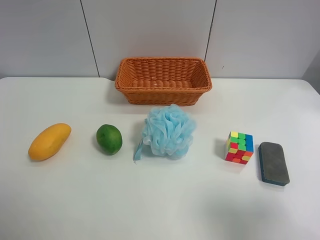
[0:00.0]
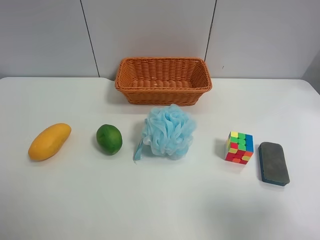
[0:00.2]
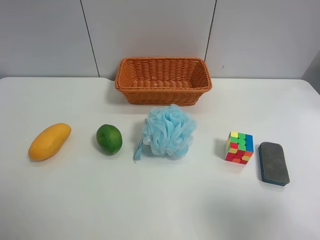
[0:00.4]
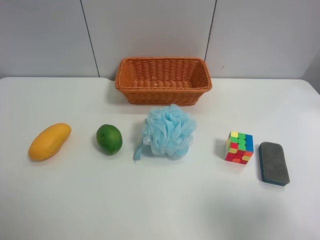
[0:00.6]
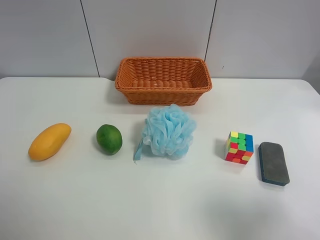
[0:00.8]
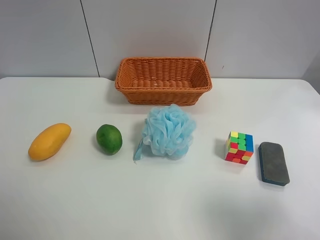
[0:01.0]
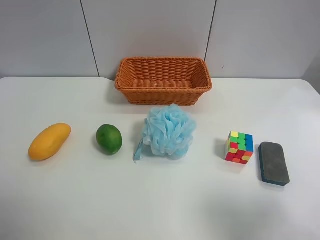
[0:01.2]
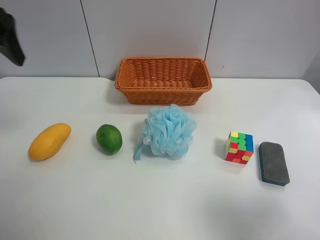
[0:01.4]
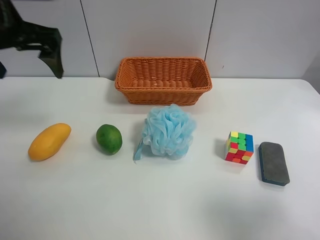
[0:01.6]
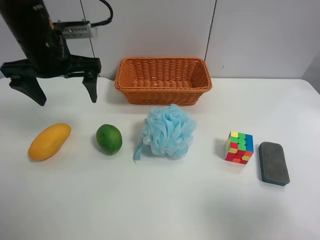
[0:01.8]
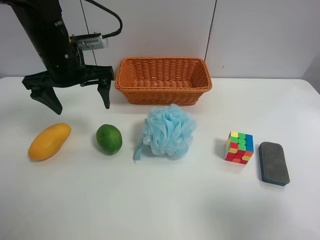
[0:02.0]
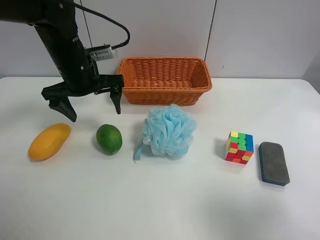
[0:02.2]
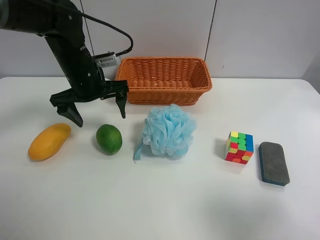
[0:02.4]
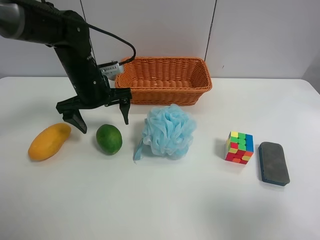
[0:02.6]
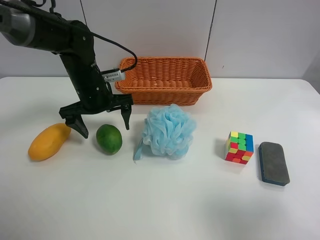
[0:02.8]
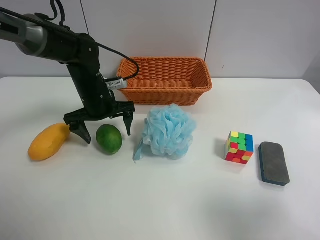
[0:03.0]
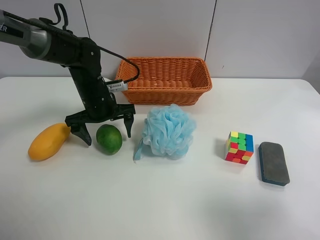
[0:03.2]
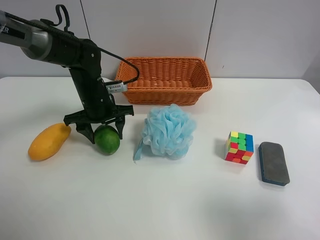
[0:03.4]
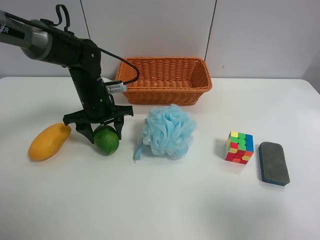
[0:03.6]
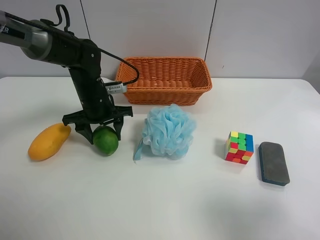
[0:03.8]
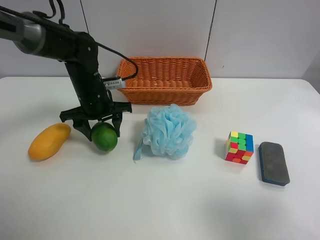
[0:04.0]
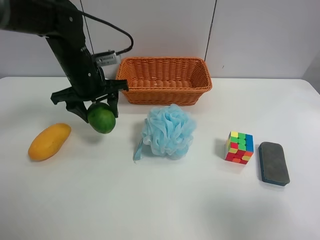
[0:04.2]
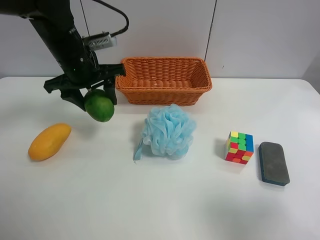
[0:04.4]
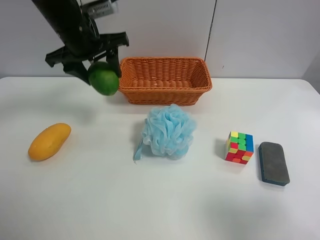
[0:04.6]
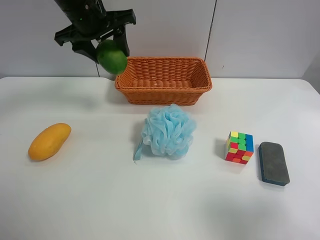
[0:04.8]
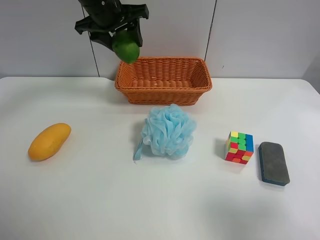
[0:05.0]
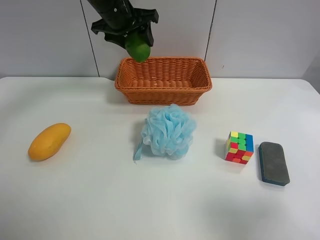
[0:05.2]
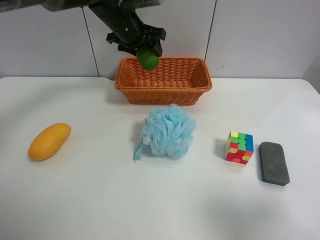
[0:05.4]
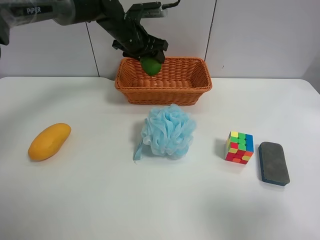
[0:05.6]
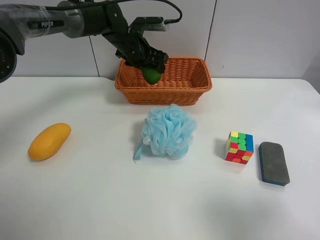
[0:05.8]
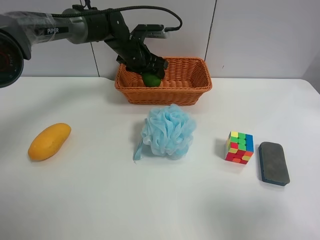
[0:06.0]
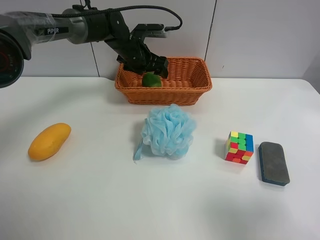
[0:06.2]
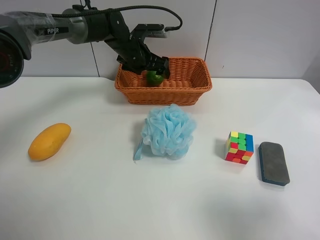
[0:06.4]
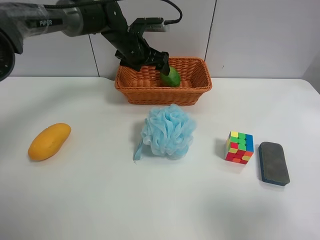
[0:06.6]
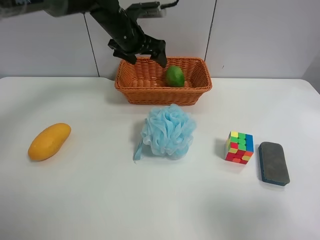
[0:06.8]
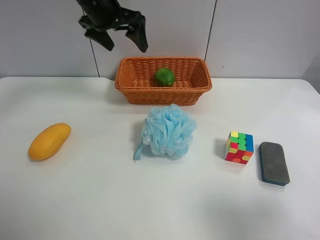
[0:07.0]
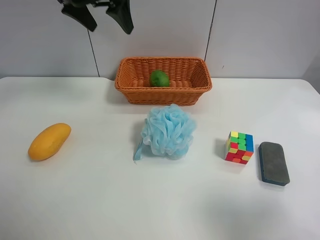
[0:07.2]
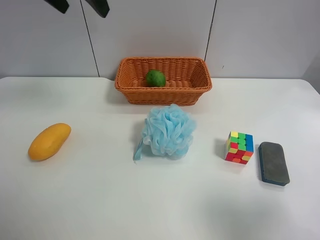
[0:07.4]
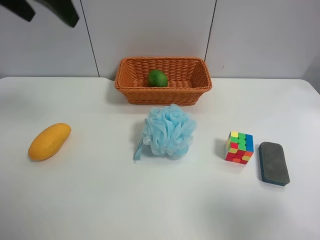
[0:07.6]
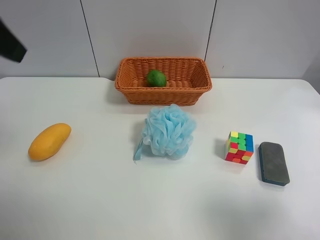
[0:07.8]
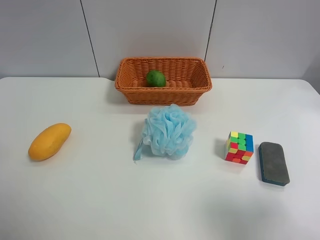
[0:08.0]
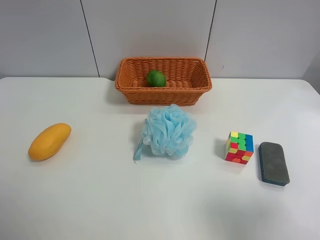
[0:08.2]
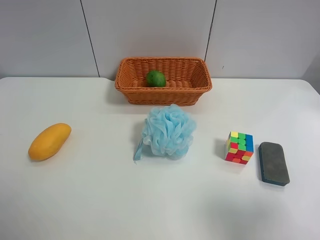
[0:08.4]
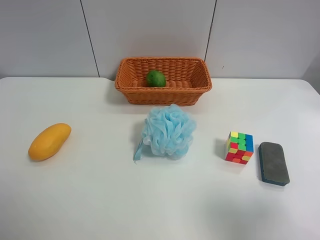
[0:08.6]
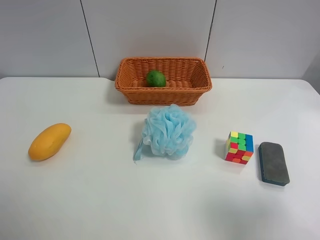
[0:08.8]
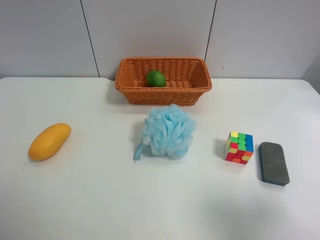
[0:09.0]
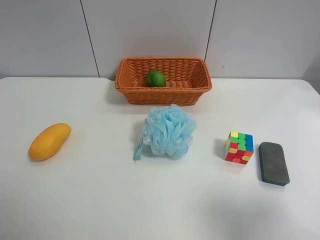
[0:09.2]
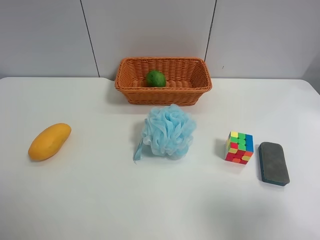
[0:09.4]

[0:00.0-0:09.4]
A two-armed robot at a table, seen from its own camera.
Task of the whole recording: use the left gripper to grab items from the table and place them in the basket.
Step, 0:00.0 to 0:03.6: Grasp the apple rubber puff with the left gripper.
Step, 0:03.8 to 0:06.6: Place the apple rubber puff into the basket with the left gripper.
0:00.0 to 0:01.6: The left gripper goes roughly 30 cm forward.
0:01.6 to 0:03.2: The left gripper shifts approximately 20 cm downward.
0:03.2 to 0:04.8: The left gripper moves upward, about 20 cm, and closes.
0:04.8 to 0:06.2: The left gripper travels downward, forward and to the right by some 20 cm, and opens its fingers.
0:06.2 to 0:07.8: The left gripper moves backward, upward and to the left, roughly 40 cm.
0:07.8 to 0:09.4: The left gripper moves backward and downward, roughly 20 cm.
